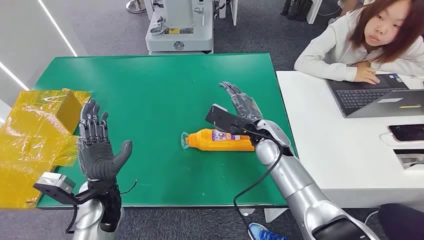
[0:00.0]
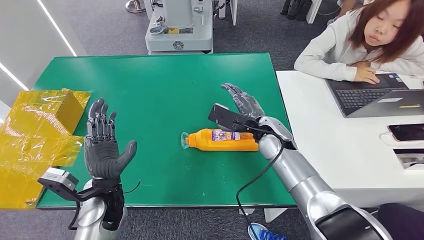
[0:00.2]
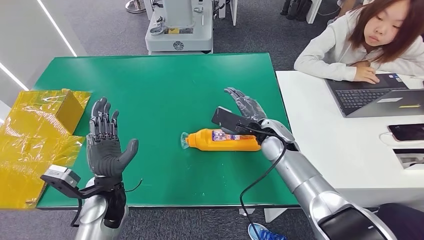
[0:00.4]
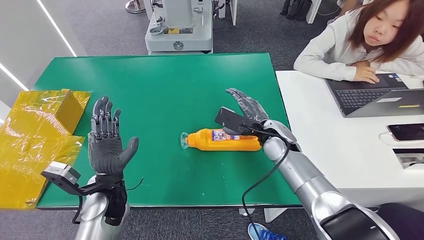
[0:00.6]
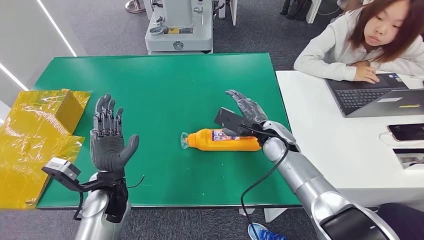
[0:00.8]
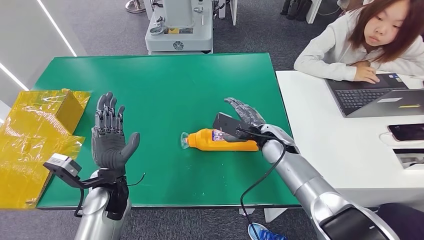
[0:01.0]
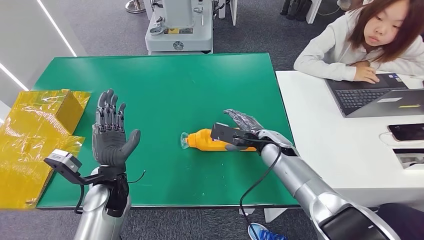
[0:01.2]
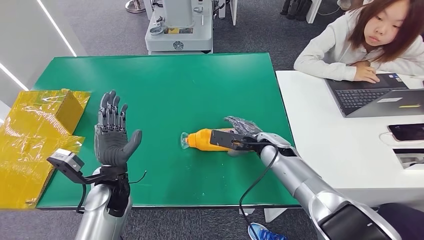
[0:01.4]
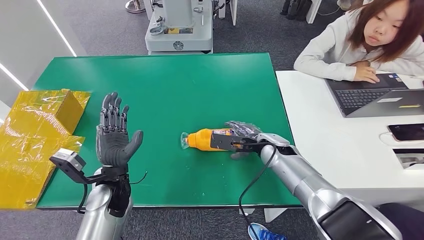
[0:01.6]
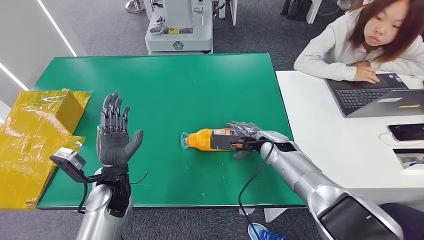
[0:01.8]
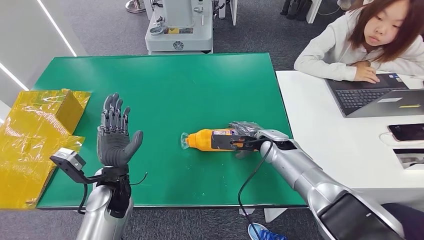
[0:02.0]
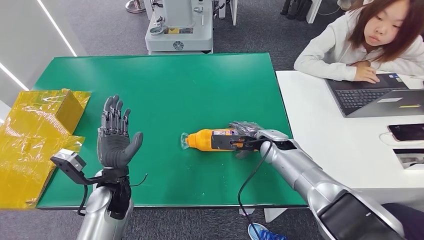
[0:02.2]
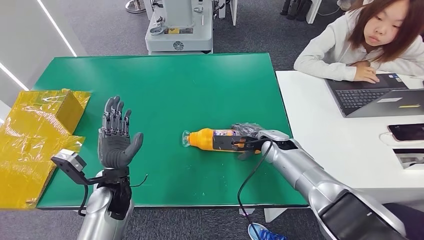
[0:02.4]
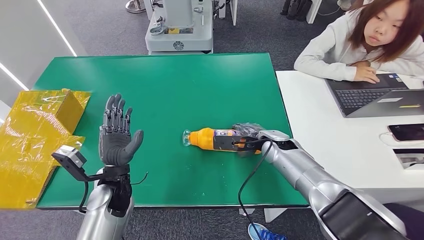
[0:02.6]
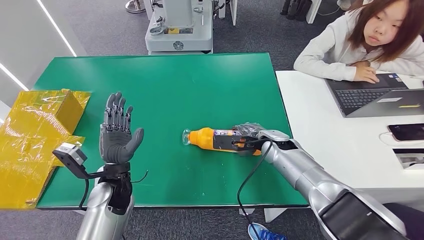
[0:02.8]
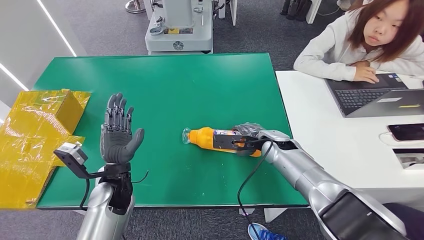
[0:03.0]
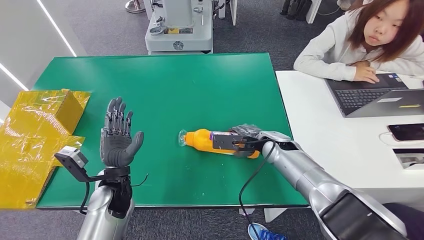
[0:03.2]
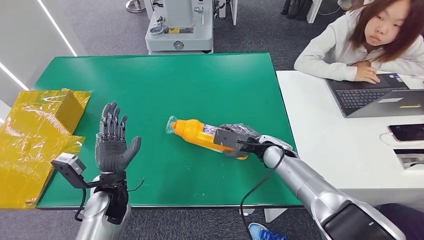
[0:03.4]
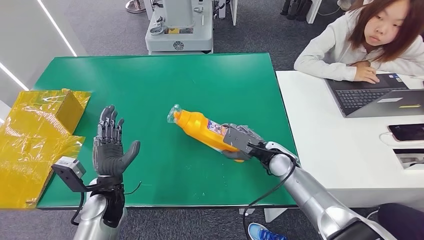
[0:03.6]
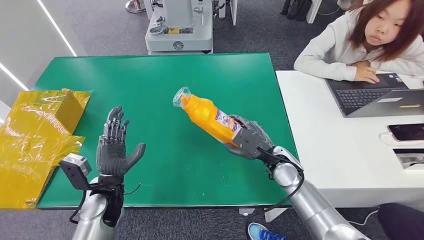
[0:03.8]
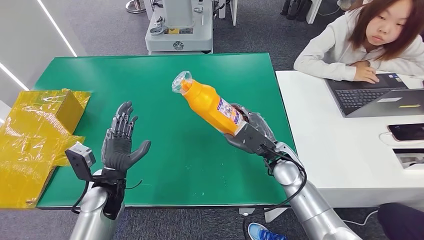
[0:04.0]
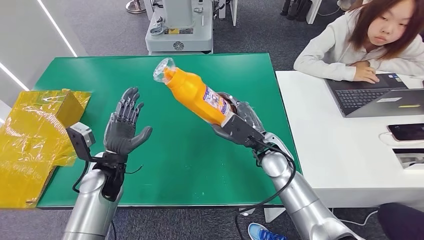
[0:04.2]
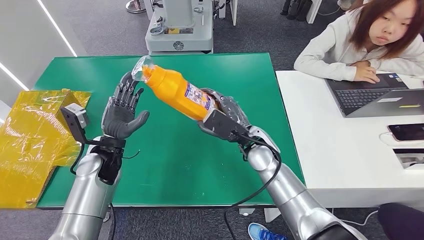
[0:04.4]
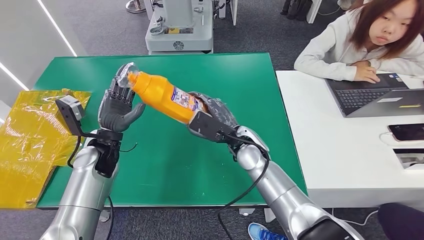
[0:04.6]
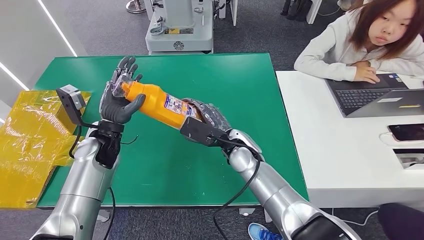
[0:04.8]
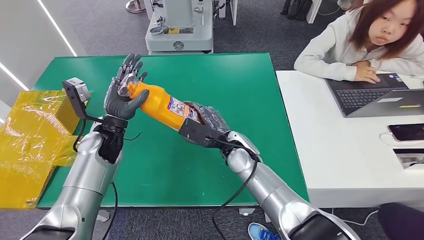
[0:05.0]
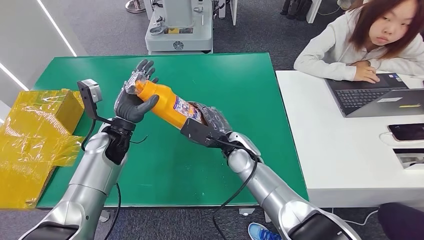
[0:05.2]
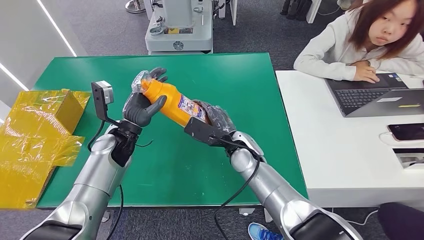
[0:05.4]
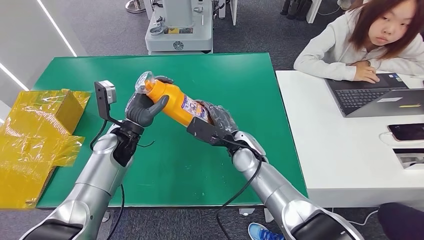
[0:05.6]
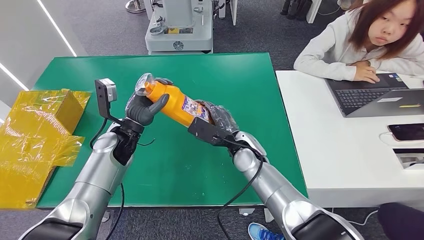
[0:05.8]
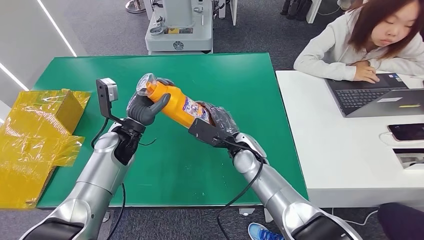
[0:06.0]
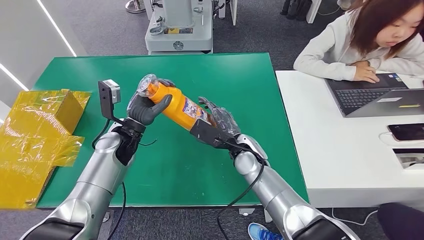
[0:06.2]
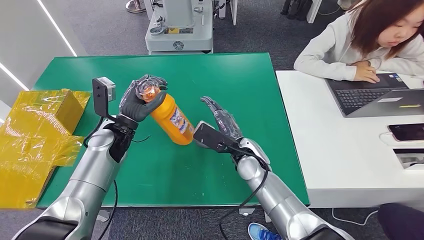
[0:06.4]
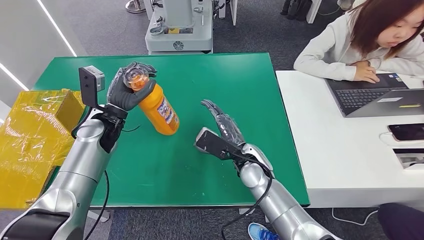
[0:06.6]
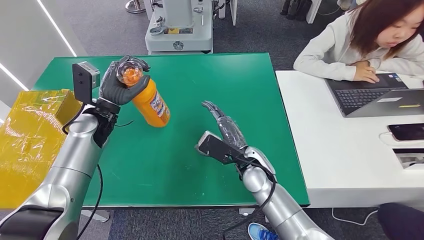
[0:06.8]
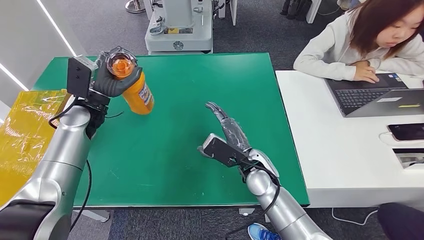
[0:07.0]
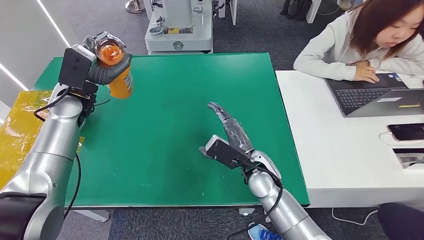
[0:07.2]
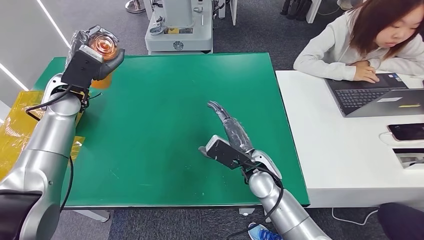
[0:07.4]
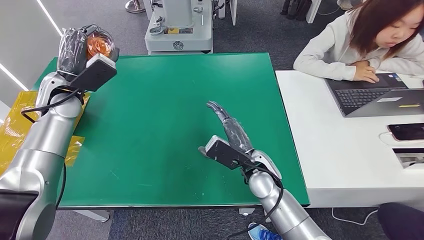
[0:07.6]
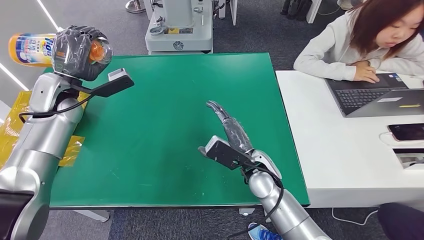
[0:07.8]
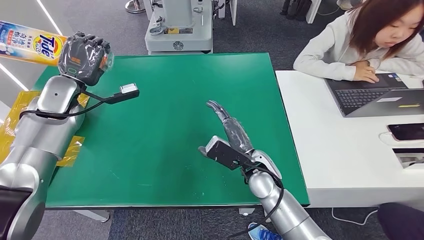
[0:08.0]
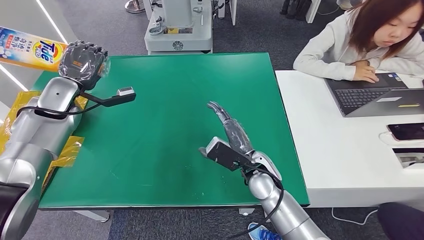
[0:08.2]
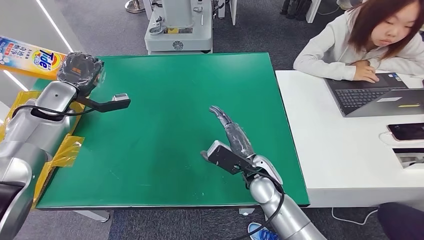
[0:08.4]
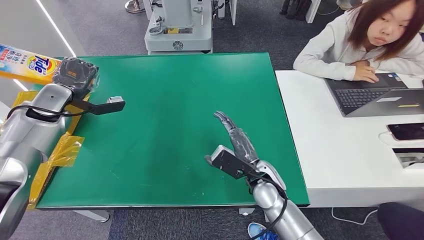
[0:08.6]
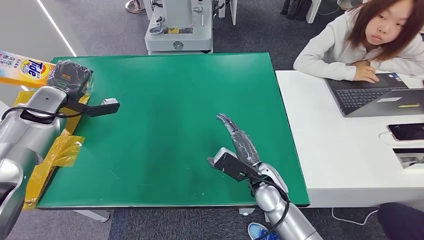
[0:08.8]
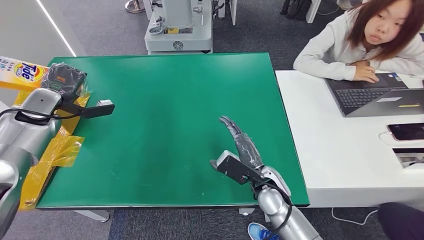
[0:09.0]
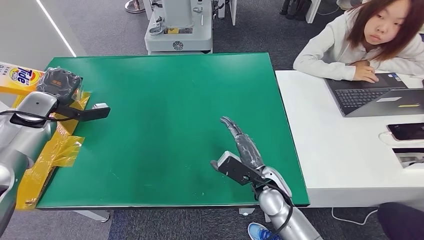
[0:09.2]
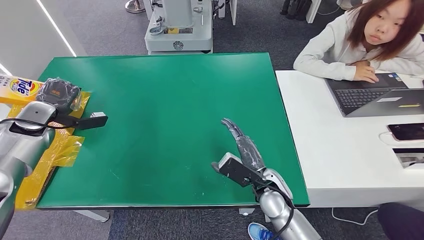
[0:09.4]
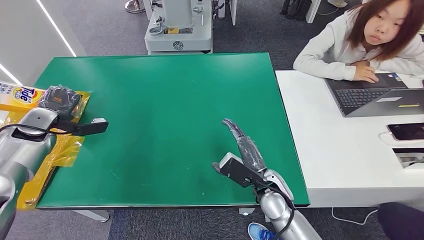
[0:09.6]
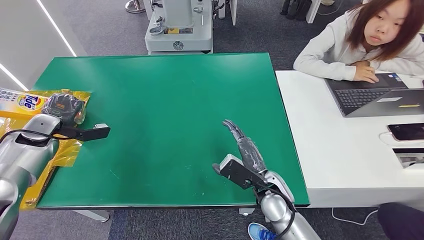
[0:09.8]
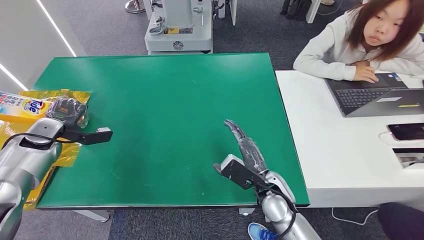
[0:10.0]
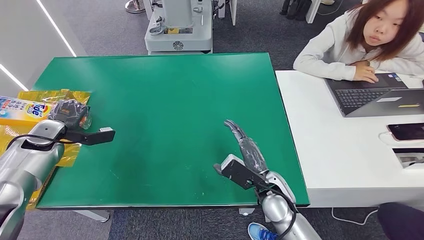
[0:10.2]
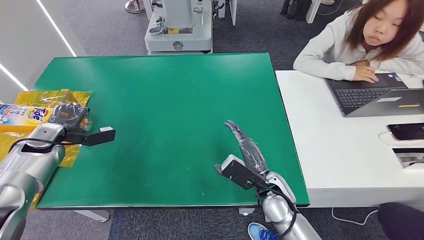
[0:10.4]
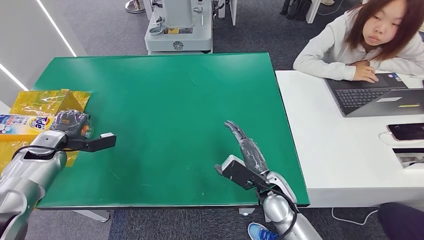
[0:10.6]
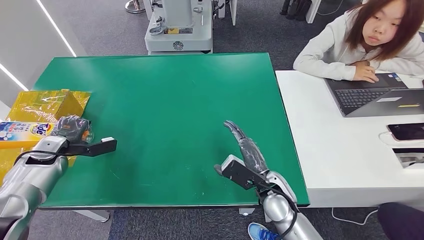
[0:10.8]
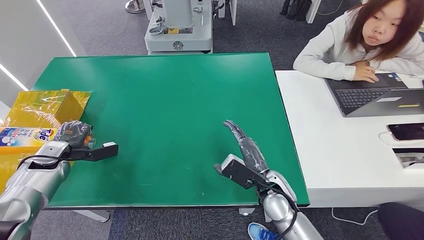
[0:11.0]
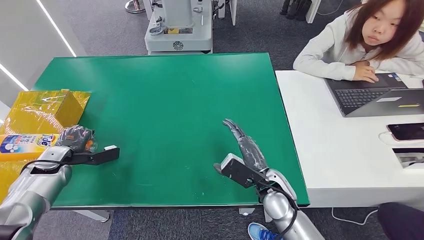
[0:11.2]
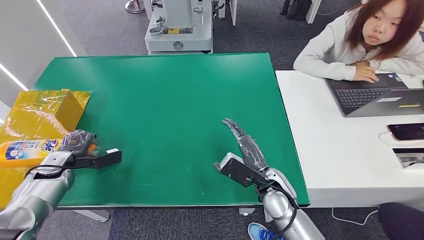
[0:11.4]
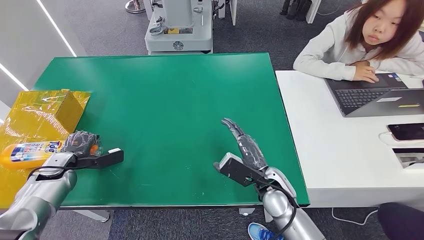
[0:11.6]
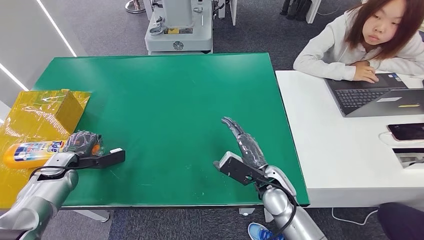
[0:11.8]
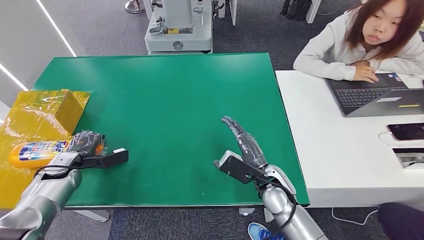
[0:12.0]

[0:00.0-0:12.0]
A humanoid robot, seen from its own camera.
Step, 0:00.0 to 0:04.2: Pick up the bottle from the table.
0:01.6 to 0:03.0: There are only small adjustments of the hands.
0:04.4 to 0:06.0: The left hand ends up some 5 cm from where it was.
0:07.6 to 0:09.0: The left hand shifts approximately 10 cm to the left.
0:09.0 to 0:10.4: The left hand moves downward, approximately 10 cm.
0:10.4 to 0:12.0: The left hand goes some 10 cm downward.

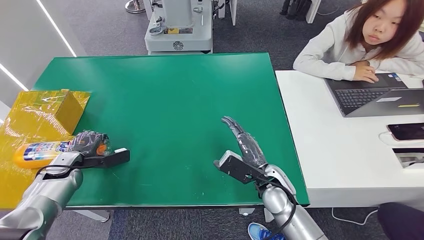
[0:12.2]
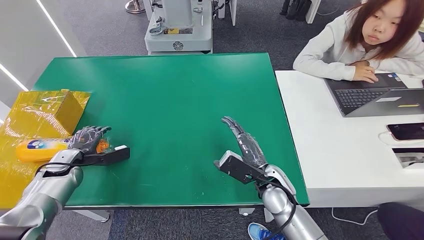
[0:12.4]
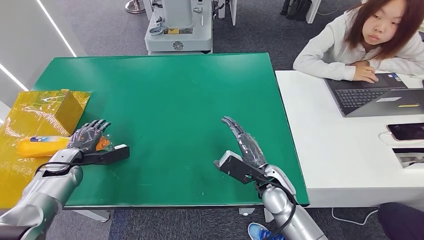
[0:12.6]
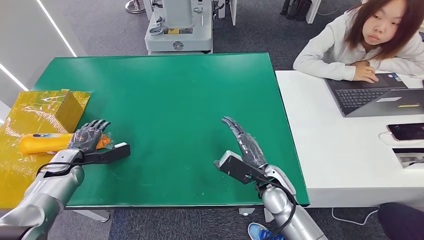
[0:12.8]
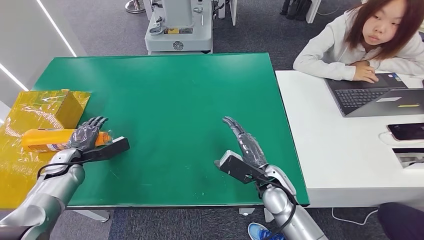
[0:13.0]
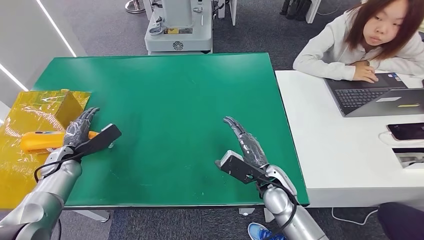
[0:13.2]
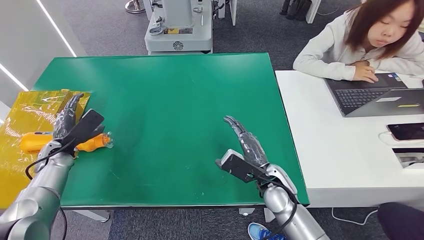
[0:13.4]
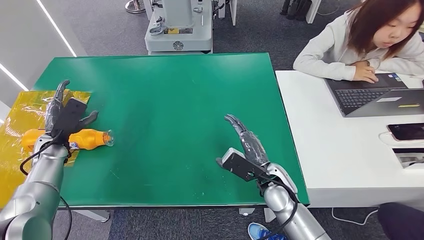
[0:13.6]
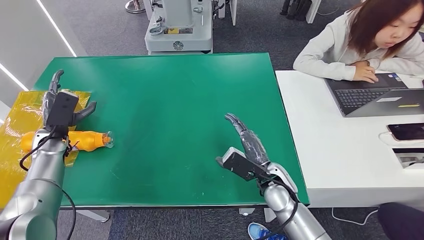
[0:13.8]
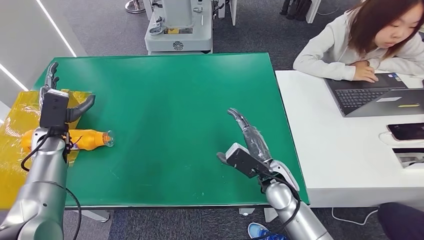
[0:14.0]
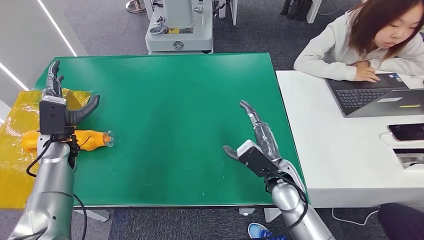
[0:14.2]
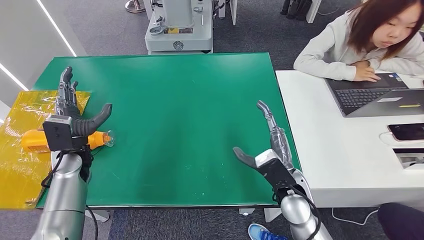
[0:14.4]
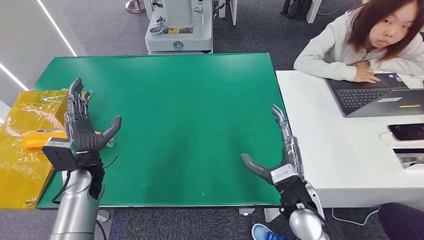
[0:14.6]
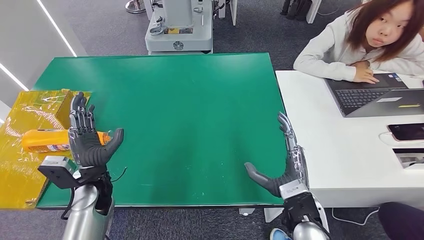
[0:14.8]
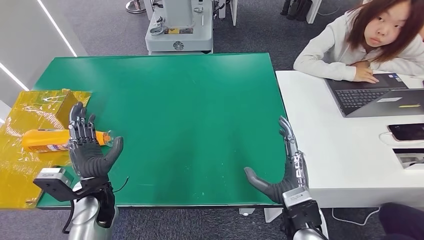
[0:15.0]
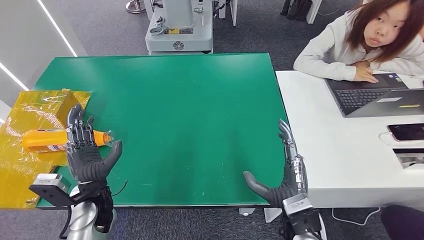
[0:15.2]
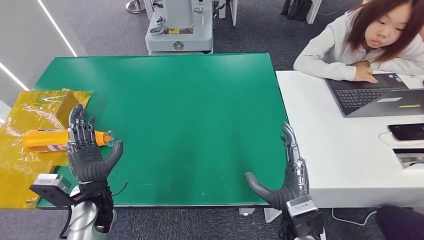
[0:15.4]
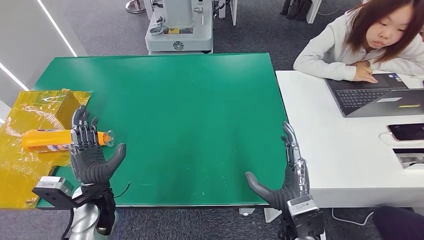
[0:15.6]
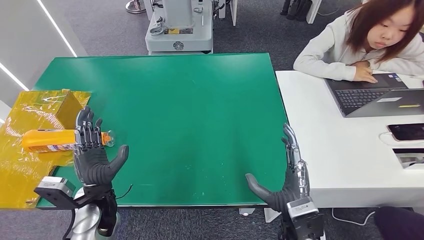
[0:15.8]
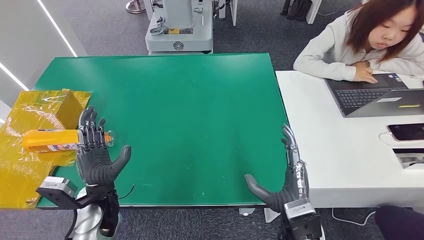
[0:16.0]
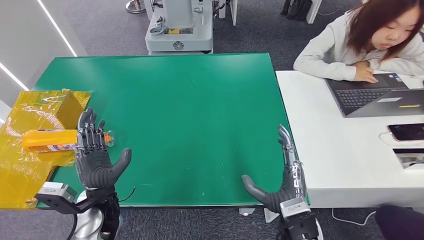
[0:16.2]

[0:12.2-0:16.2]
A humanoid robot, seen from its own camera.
Step, 0:12.2 to 0:16.2: Turn the bottle to the front side.
0:12.2 to 0:13.6: The left hand goes roughly 5 cm upward.
0:13.6 to 0:14.8: The right hand heads backward, covering roughly 10 cm; the left hand is displaced to the right and backward by roughly 20 cm.
0:14.8 to 0:16.2: The left hand moves backward, approximately 5 cm.

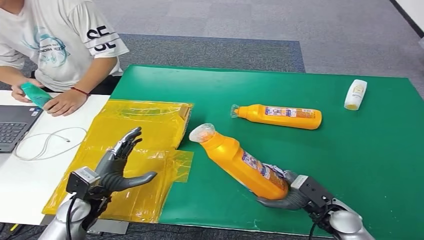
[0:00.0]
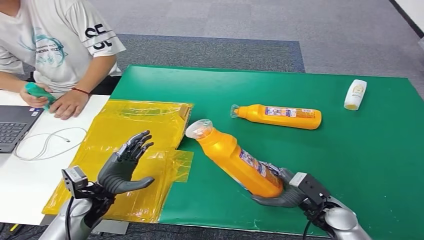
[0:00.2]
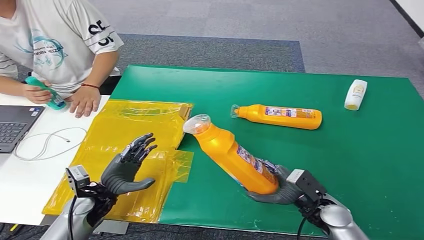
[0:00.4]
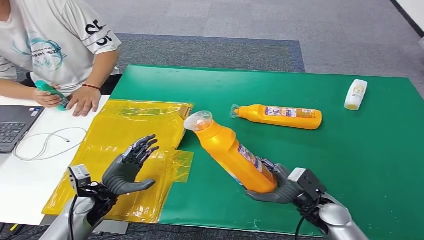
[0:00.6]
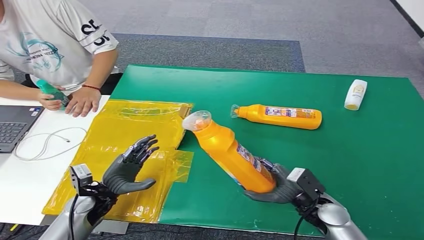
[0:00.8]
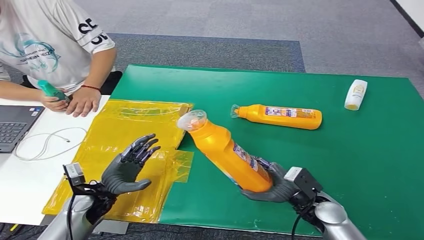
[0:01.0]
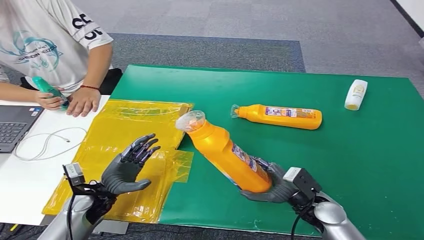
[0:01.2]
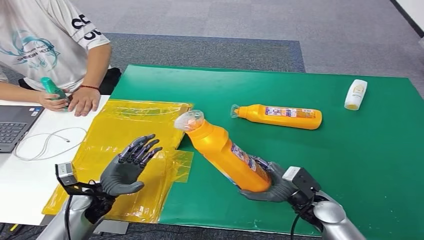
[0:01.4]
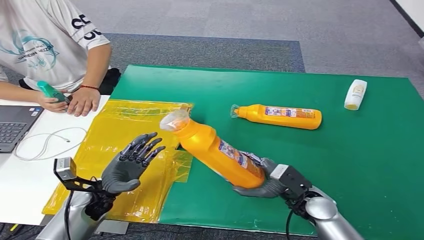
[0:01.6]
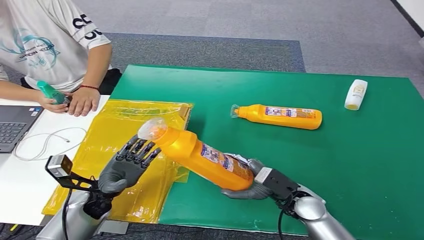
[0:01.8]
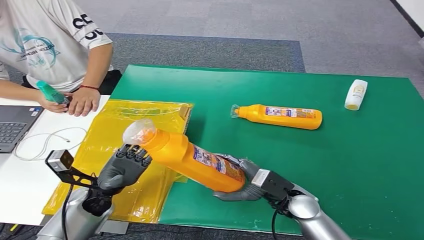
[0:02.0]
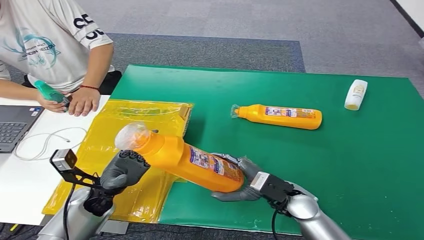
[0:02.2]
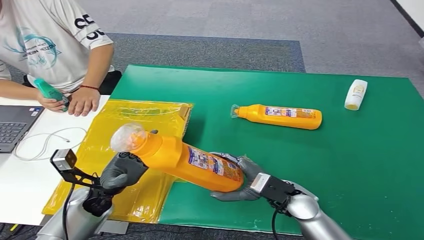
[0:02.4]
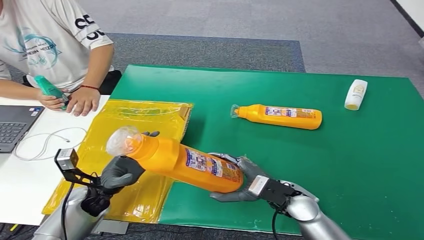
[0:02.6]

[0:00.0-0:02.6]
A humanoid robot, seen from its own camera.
0:01.2 to 0:02.6: The right hand shifts about 5 cm to the left.
